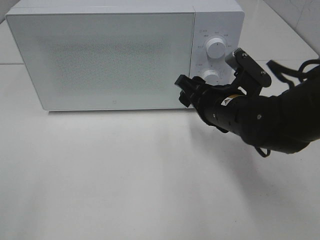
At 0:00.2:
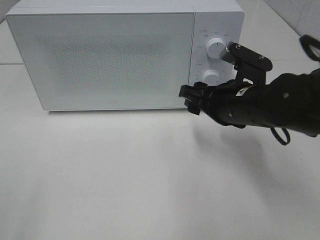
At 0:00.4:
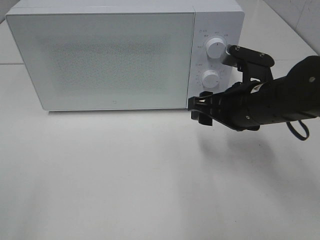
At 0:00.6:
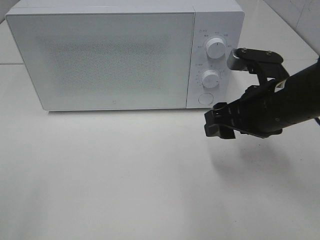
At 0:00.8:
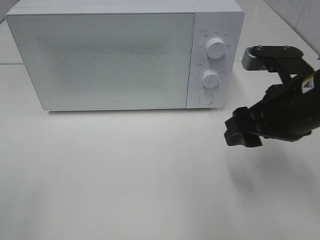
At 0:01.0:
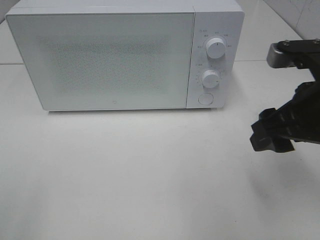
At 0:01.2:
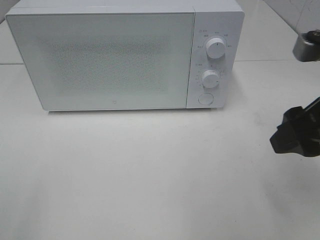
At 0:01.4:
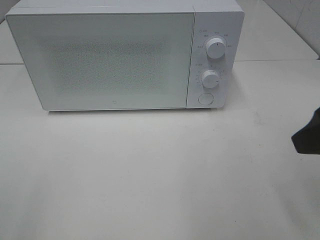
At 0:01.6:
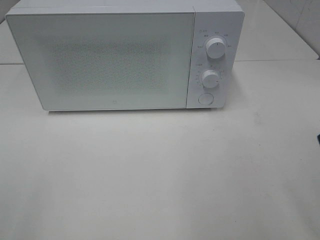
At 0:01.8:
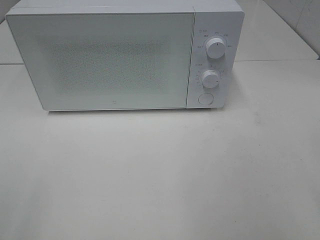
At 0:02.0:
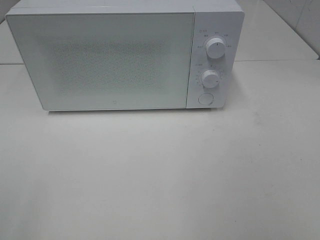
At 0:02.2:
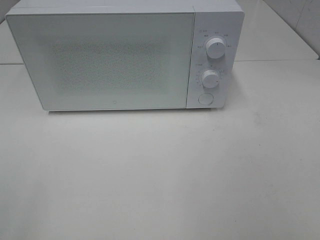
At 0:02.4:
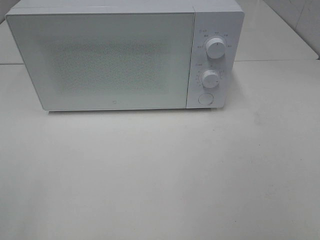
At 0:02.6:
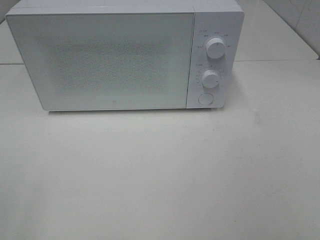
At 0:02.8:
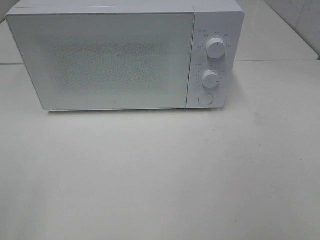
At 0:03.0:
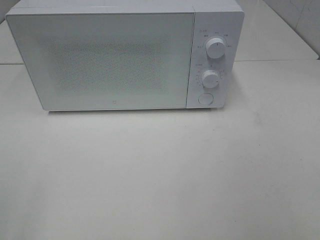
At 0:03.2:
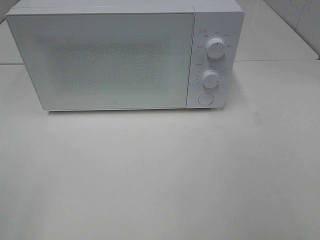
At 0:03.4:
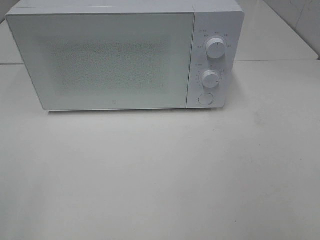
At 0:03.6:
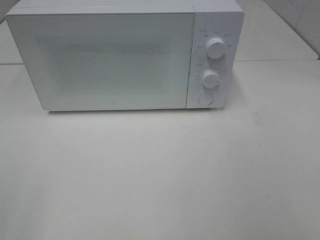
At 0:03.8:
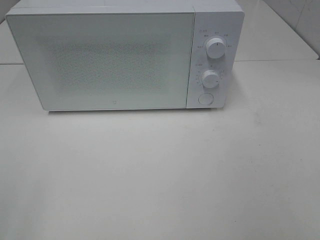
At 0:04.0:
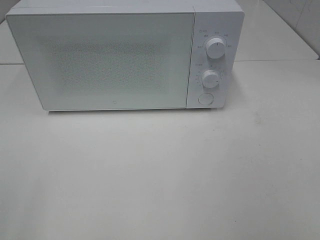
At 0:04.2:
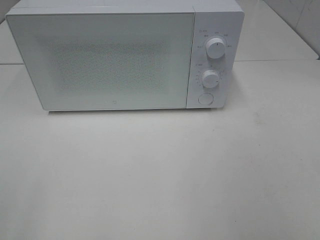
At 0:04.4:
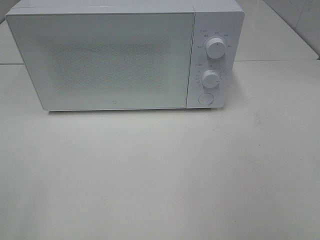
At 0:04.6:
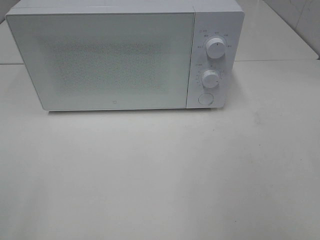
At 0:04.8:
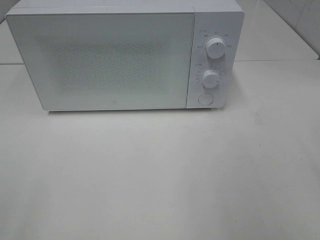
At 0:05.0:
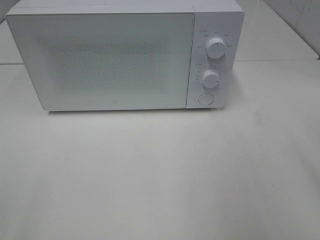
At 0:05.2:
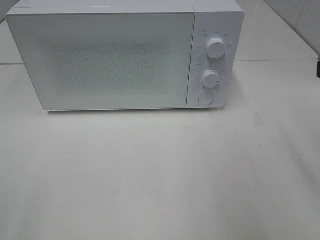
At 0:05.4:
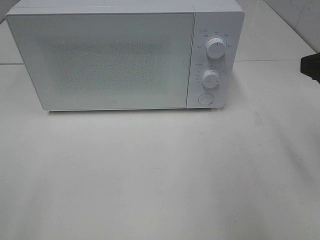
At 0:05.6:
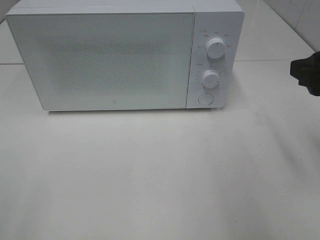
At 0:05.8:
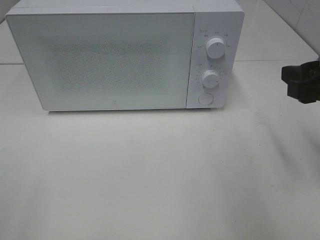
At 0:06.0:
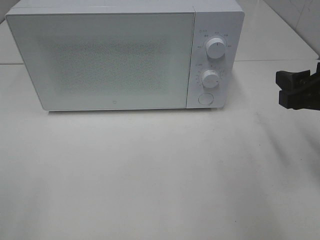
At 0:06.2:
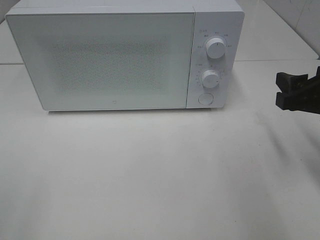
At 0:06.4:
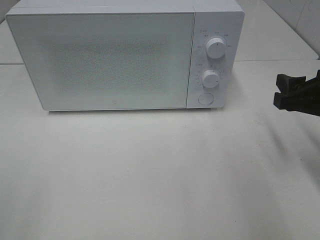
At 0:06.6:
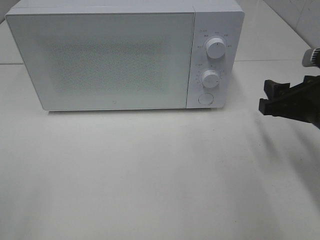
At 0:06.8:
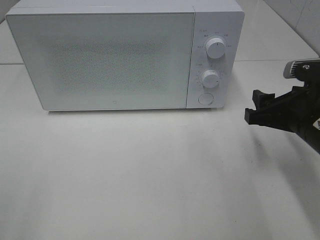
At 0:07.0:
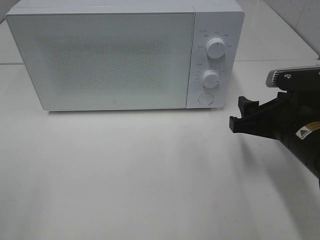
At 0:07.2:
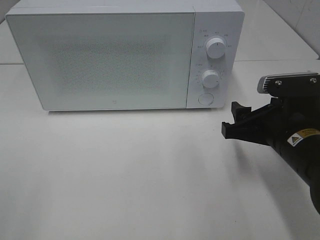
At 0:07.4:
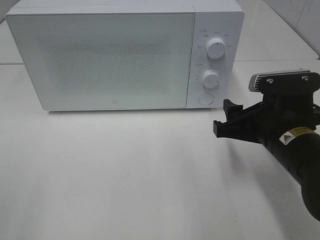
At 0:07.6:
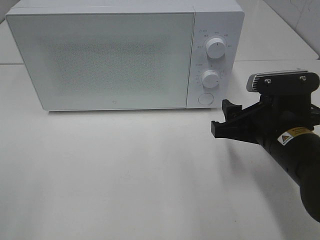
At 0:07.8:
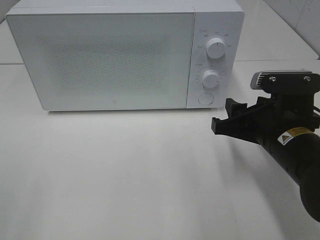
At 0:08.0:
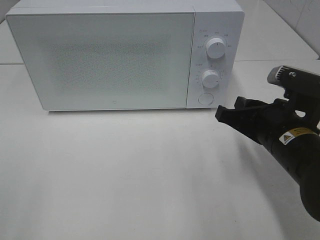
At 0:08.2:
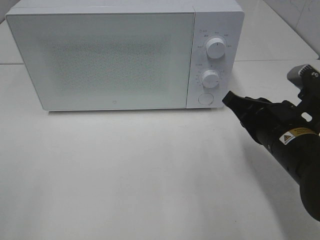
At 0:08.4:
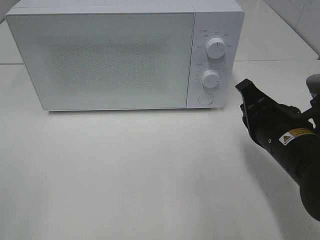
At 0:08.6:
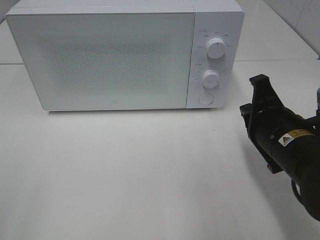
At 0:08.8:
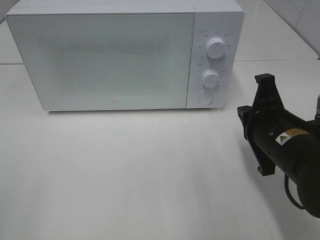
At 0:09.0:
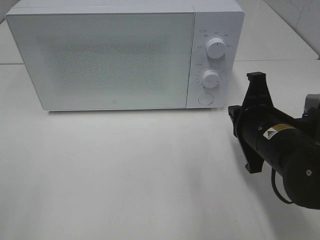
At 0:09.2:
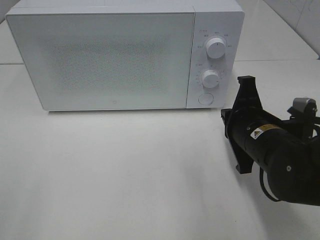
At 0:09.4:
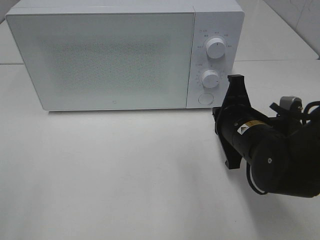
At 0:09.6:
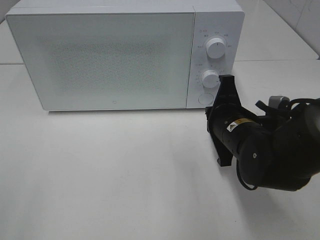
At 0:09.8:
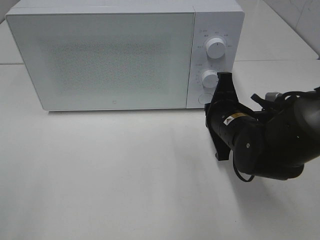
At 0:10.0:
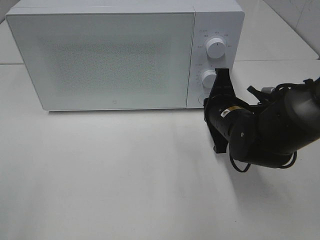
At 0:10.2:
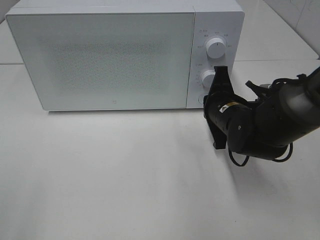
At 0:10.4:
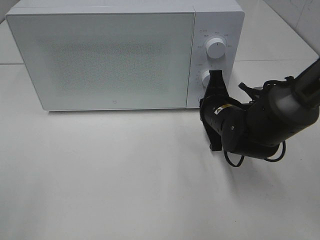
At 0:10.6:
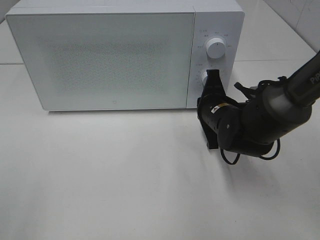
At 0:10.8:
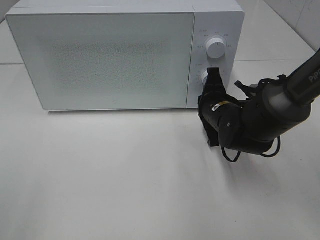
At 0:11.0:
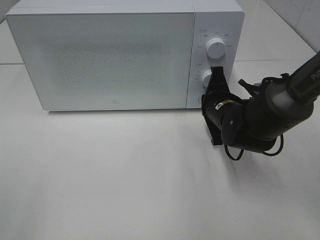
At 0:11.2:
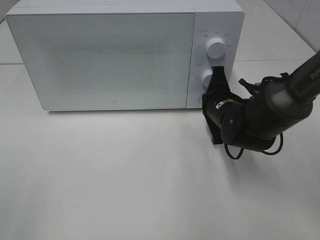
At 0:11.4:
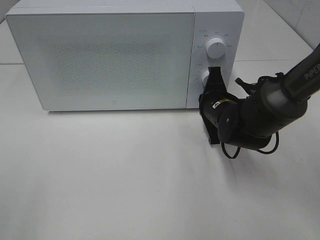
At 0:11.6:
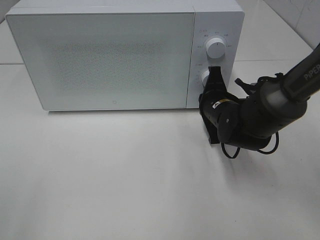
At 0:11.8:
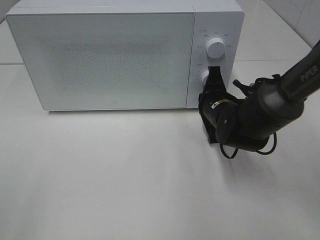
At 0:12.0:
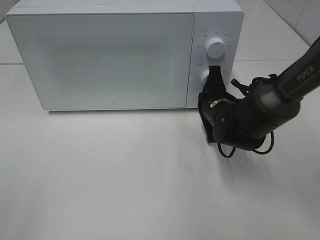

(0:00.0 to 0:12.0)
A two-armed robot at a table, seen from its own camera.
Task of the whole recording: Heat the burger.
0:00.0 - 0:01.6: The right gripper is displaced backward, upward and to the right by approximately 25 cm.
0:04.4 - 0:06.0: The right gripper travels forward and downward by roughly 20 cm.
0:06.0 - 0:07.6: The right gripper goes some 10 cm to the left and downward.
0:07.6 - 0:09.0: The right gripper closes.
0:09.0 - 0:10.4: The right gripper travels forward and downward by some 10 cm.
0:10.4 - 0:12.0: The grippers move only a little.

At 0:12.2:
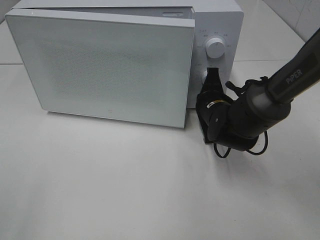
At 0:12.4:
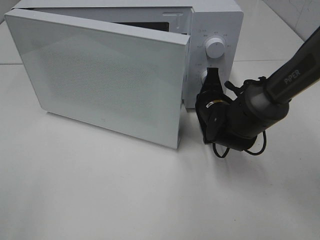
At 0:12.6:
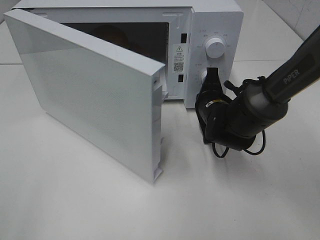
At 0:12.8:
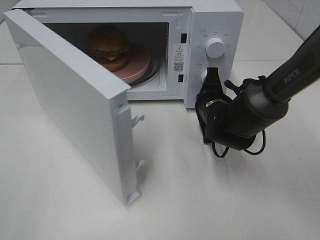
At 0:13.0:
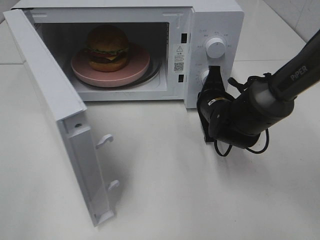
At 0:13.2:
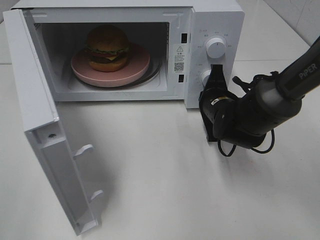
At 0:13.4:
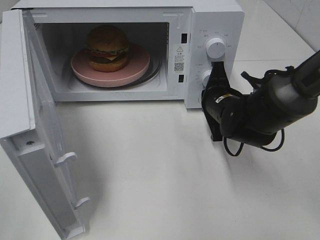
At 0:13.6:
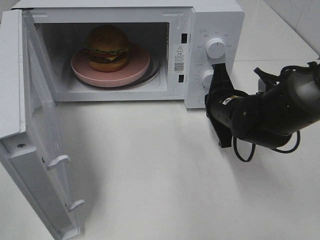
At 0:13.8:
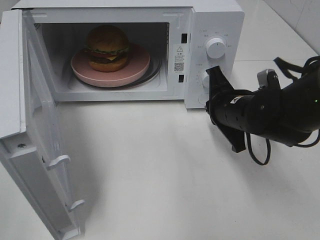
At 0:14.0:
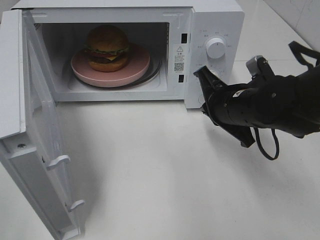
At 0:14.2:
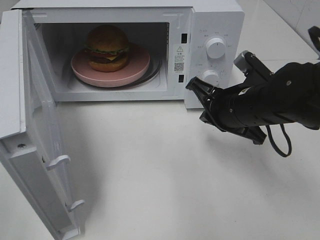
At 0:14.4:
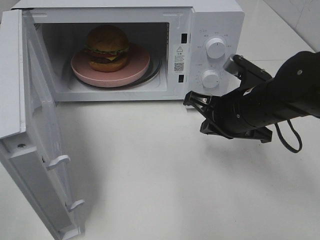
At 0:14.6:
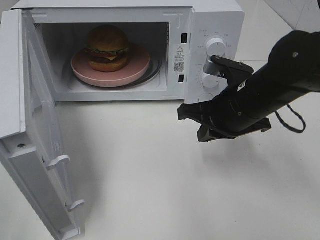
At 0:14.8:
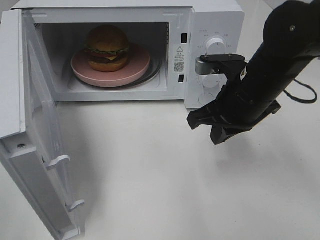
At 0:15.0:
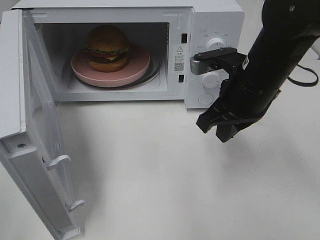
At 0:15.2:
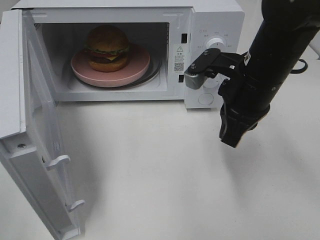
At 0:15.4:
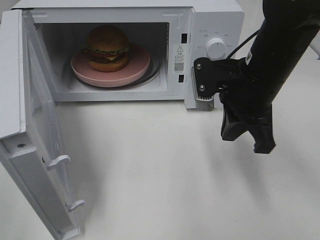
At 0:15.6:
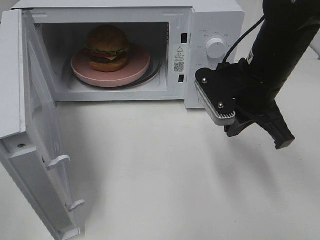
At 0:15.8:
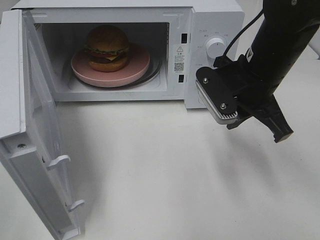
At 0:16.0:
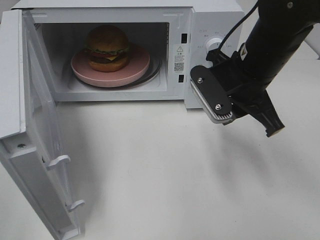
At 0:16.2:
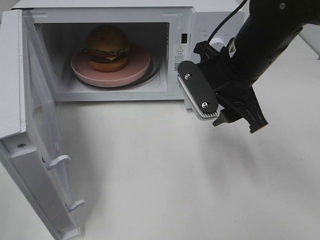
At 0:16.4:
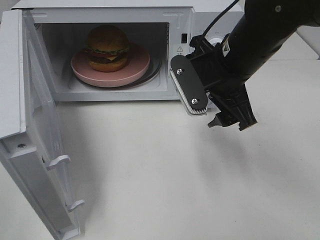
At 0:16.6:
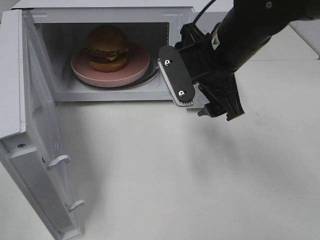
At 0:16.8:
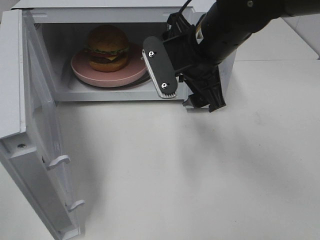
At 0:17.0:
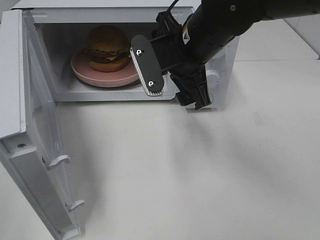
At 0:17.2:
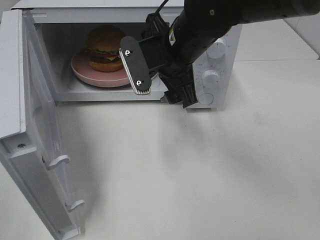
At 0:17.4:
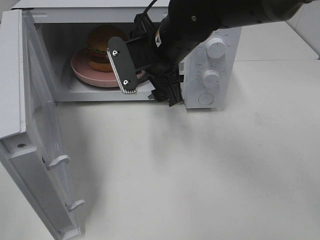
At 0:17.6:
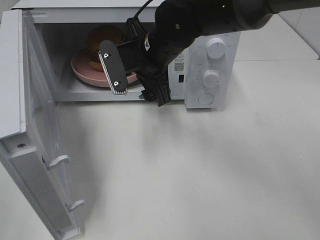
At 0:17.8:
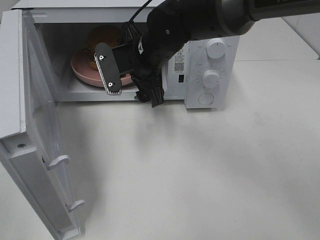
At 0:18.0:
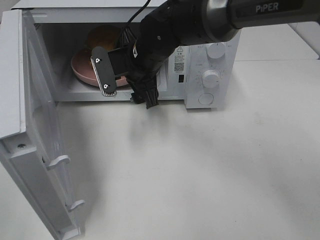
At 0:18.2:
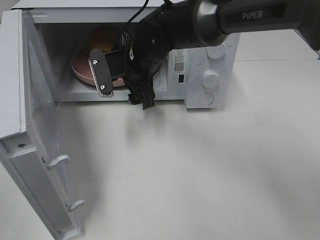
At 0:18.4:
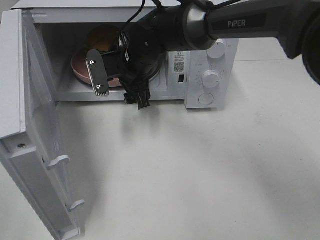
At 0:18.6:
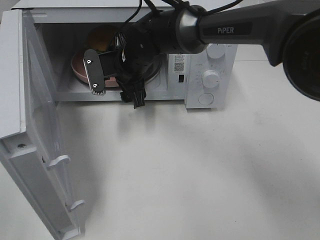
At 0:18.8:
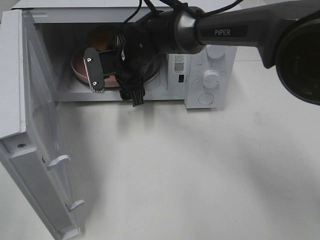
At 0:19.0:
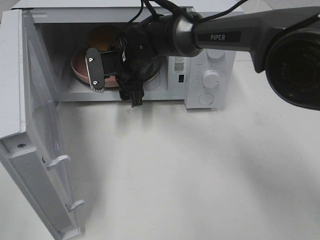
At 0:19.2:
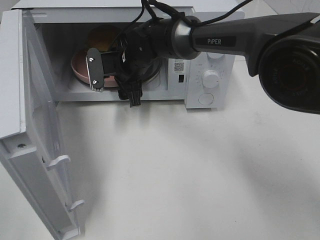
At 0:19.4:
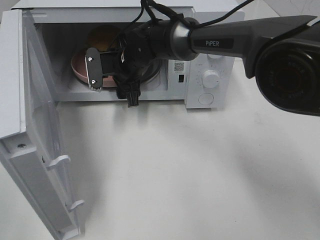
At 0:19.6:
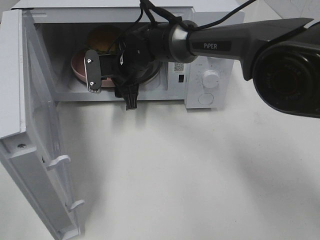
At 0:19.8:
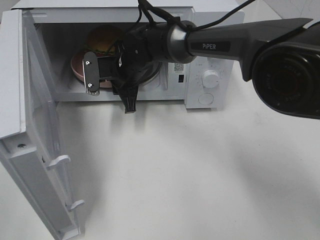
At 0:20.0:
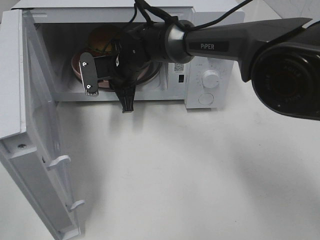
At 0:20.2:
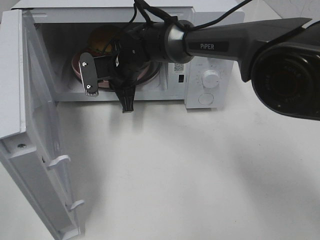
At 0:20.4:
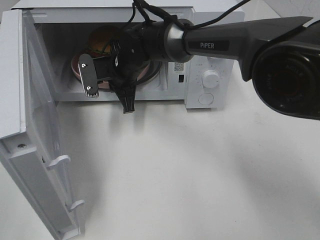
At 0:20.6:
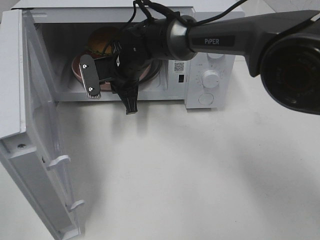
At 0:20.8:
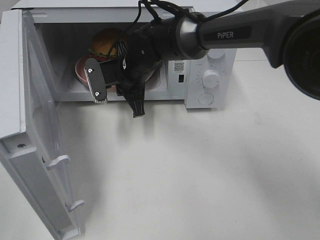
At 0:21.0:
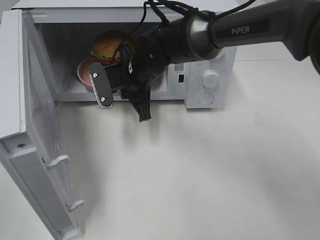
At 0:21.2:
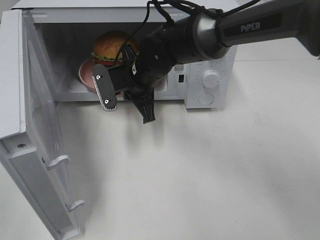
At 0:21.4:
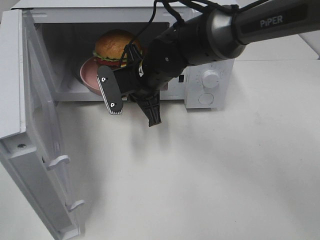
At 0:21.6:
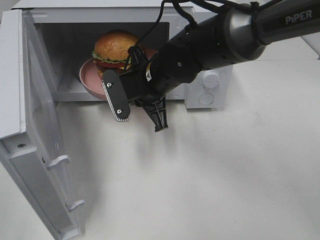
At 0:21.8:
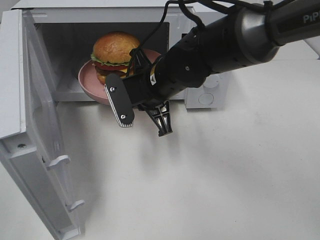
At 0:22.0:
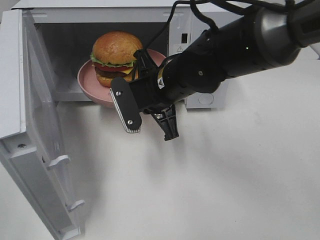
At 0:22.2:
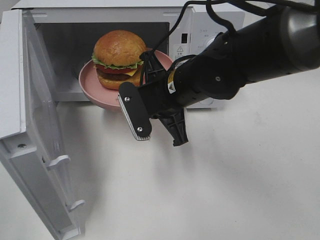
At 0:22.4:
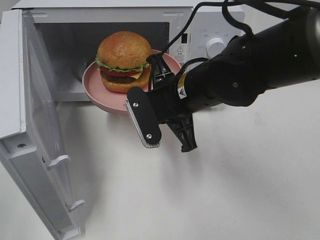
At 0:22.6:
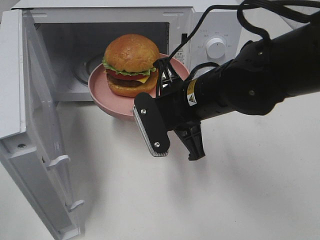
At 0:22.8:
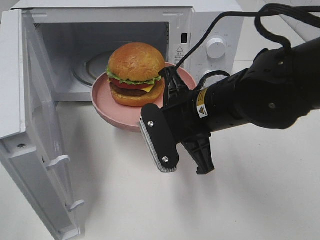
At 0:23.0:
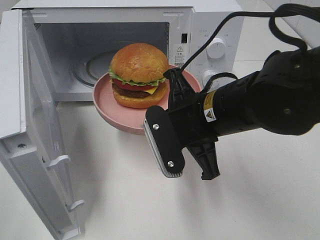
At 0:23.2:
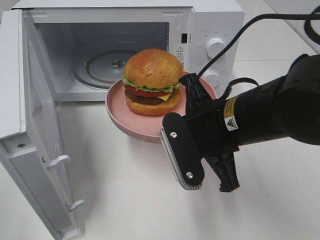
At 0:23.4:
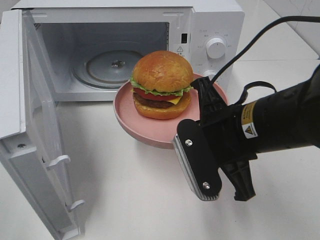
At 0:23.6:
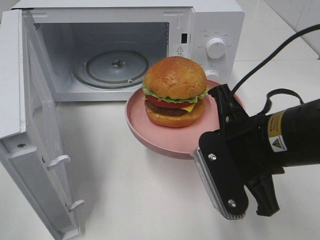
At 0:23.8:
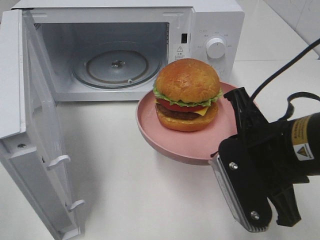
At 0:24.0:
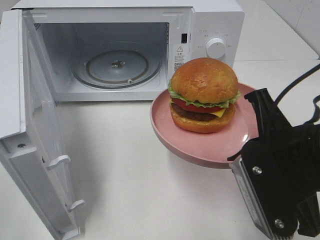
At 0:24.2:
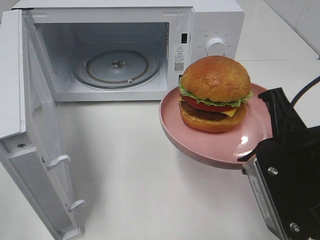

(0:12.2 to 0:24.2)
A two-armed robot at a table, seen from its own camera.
Task of the whole recording: Heat the burger.
Step, 0:13.6 - 0:19.8: Right hand: grab the plate with the hamburger.
0:12.2 - 0:13.8: The right gripper heads backward and upward, covering roughly 10 cm.
0:13.8 - 0:15.2: The right gripper heads upward, covering about 10 cm.
0:15.2 - 0:16.6: The right gripper ends up about 5 cm from where it was, and opens.
0:16.6 - 0:18.2: The right gripper heads to the left, forward and downward, covering roughly 15 cm.
0:18.2 - 0:19.8: The right gripper moves some 5 cm, and closes up.
0:19.8 - 0:21.2: The right gripper moves backward, approximately 5 cm.
0:21.2 - 0:22.6: The right gripper is displaced backward and to the right by roughly 15 cm.
0:22.6 - 0:24.2: The right gripper heads backward and to the right, covering some 15 cm.
